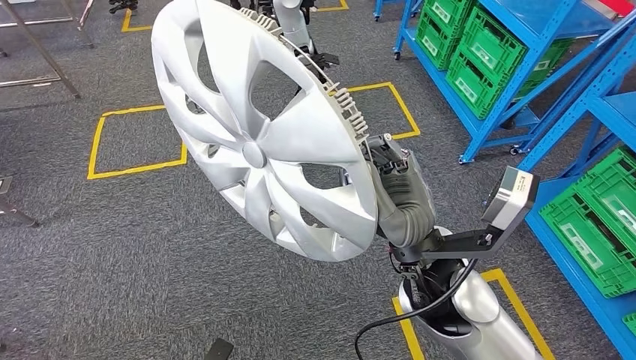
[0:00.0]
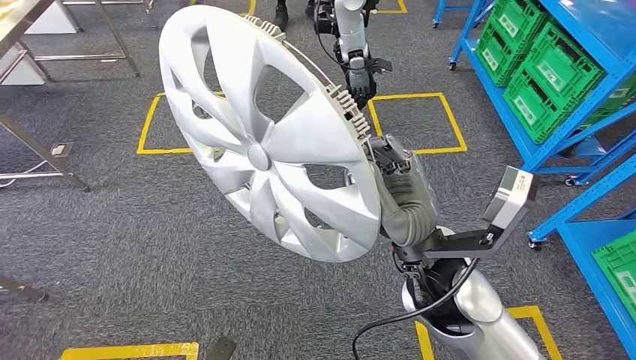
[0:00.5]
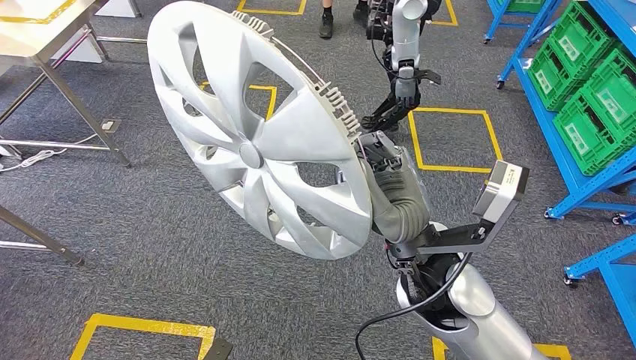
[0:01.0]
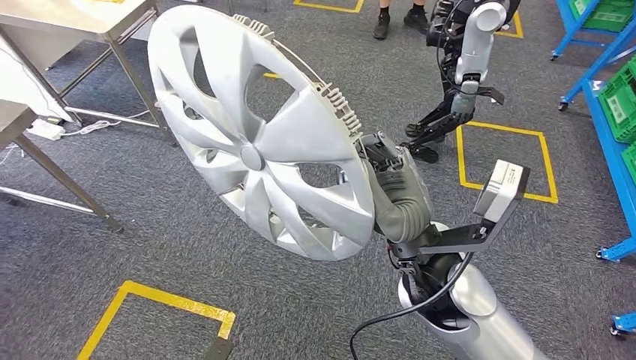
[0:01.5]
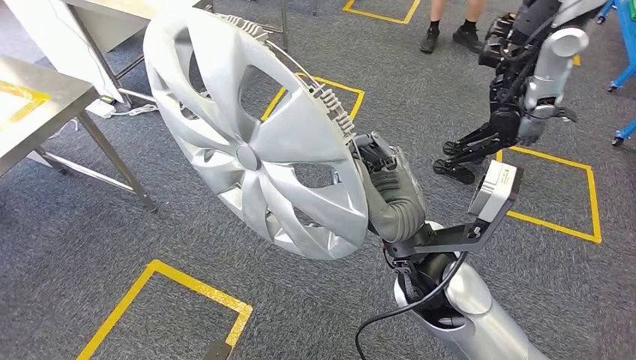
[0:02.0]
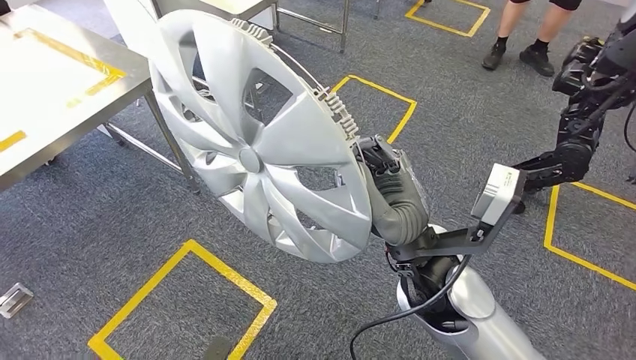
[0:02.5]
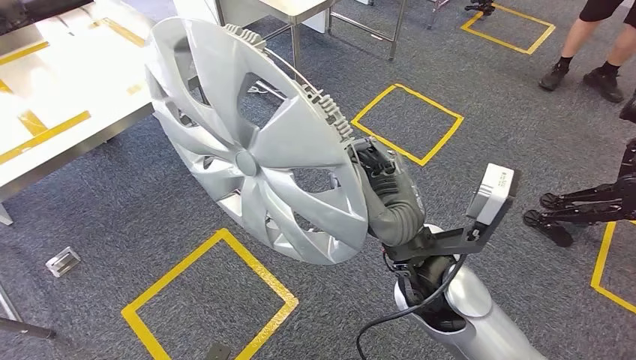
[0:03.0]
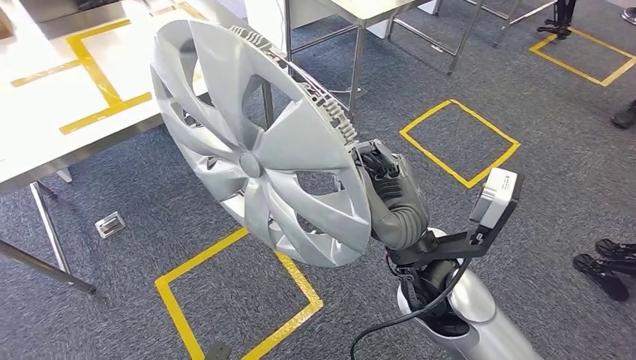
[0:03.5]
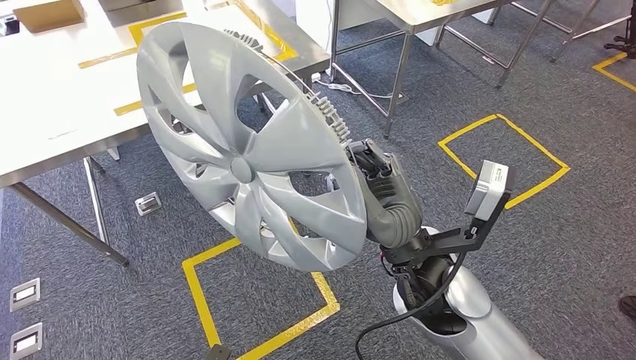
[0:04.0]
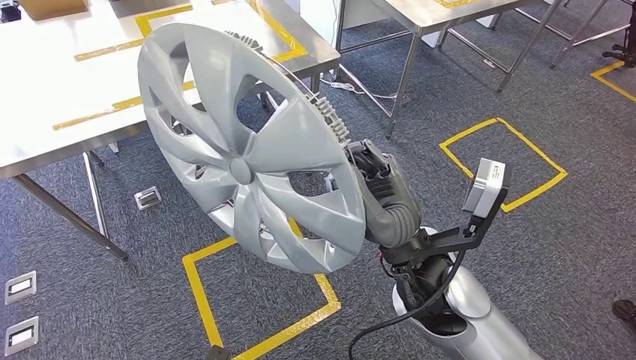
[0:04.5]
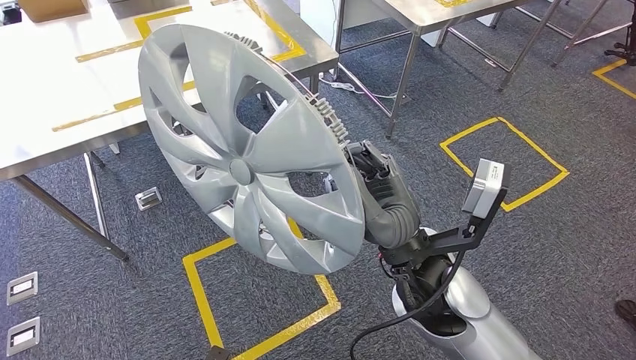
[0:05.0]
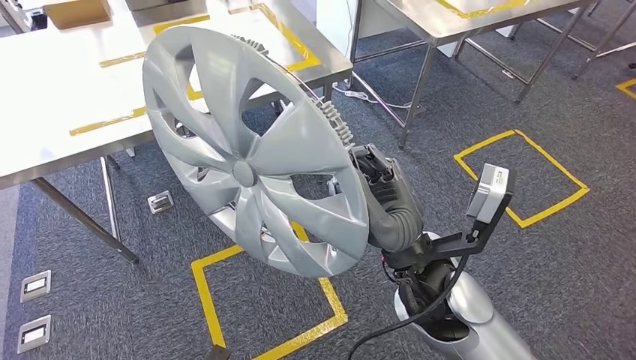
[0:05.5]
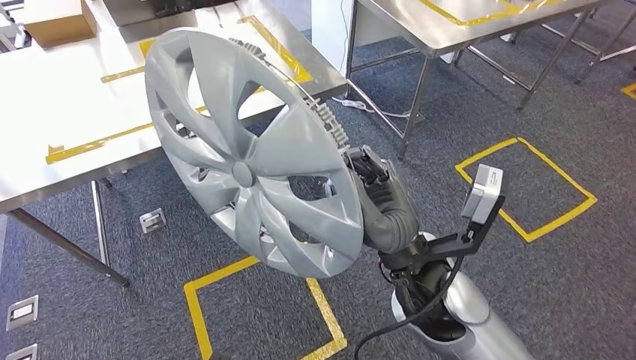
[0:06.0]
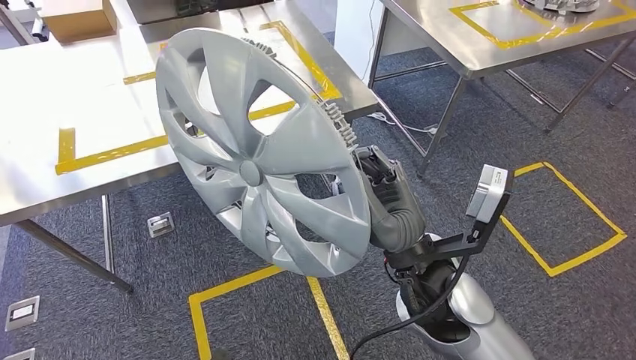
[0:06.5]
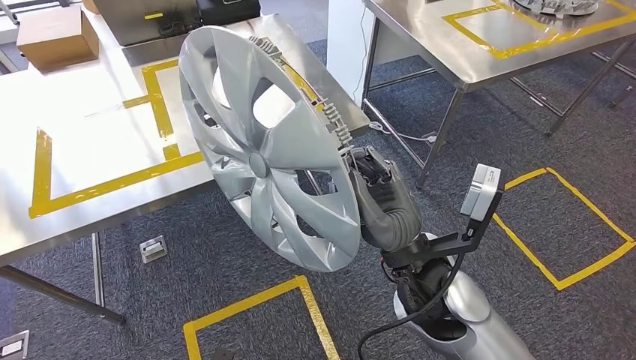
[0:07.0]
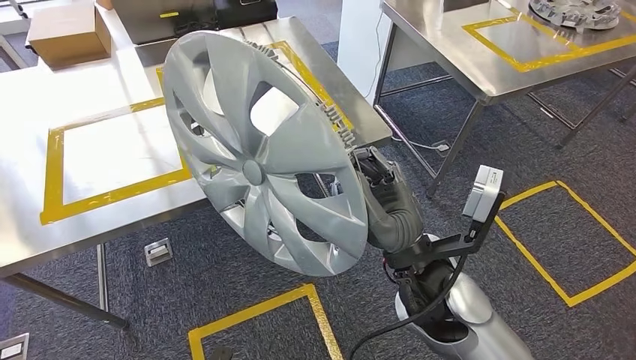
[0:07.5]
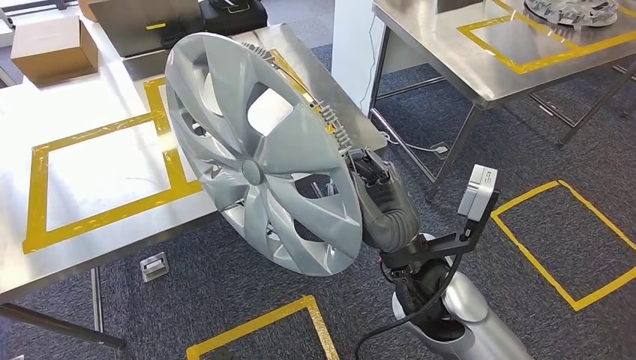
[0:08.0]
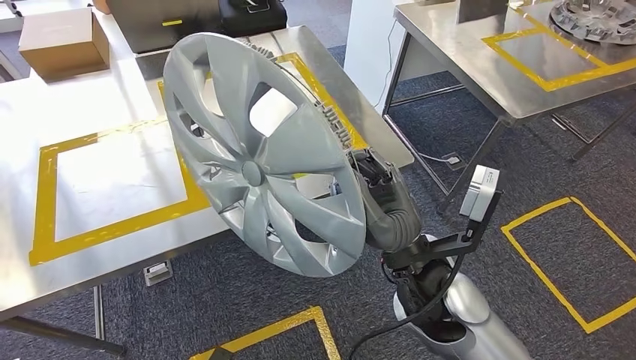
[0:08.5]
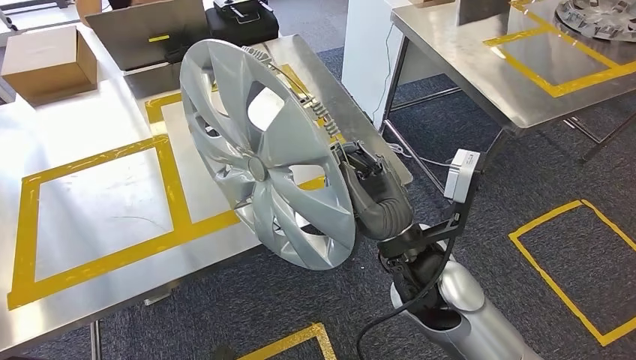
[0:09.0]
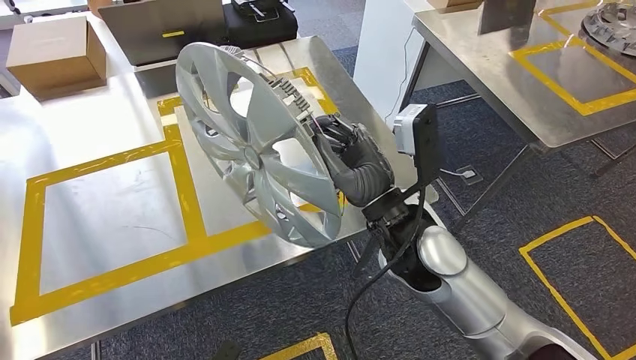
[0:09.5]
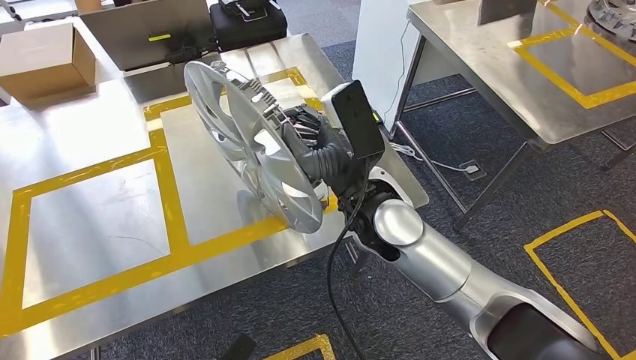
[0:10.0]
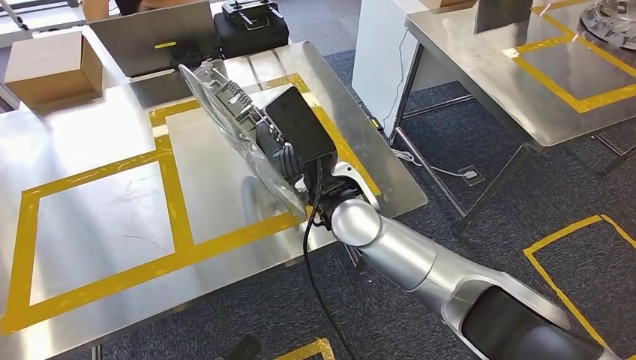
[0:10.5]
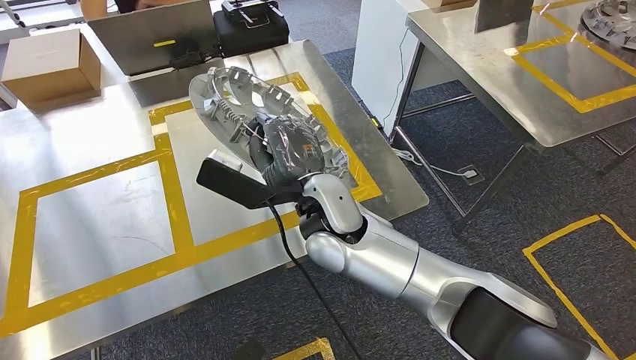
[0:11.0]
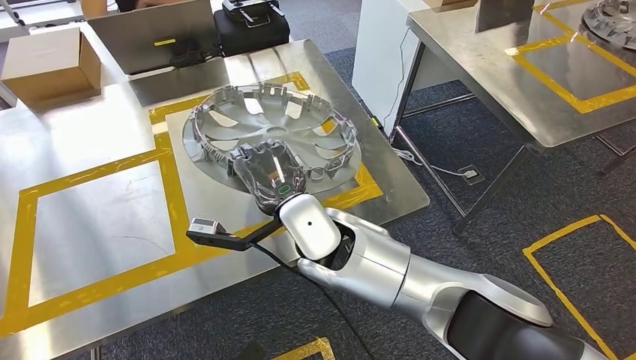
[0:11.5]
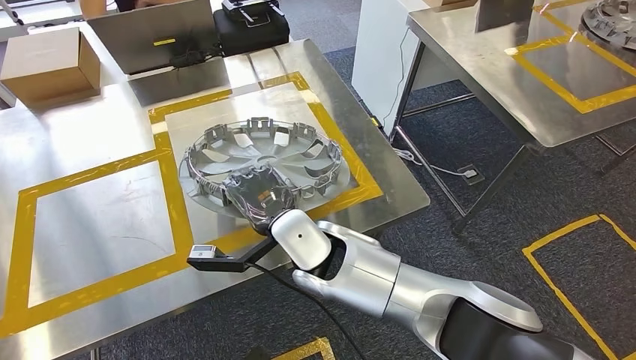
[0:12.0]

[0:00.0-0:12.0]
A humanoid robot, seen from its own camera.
Step, 0:00.0 to 0:06.0: Move the large material to the workbench.

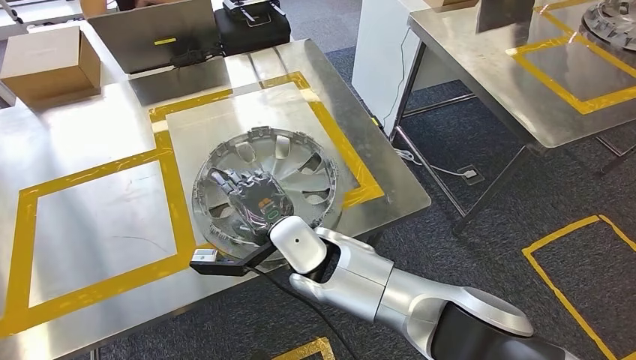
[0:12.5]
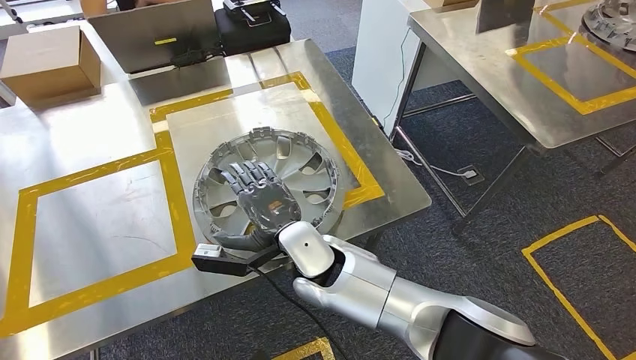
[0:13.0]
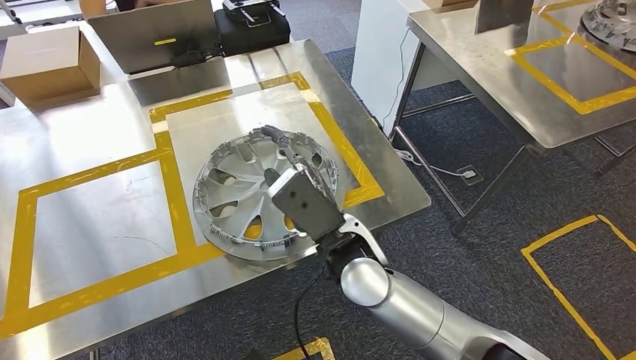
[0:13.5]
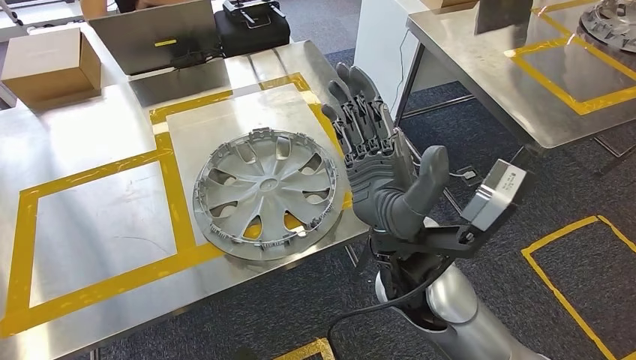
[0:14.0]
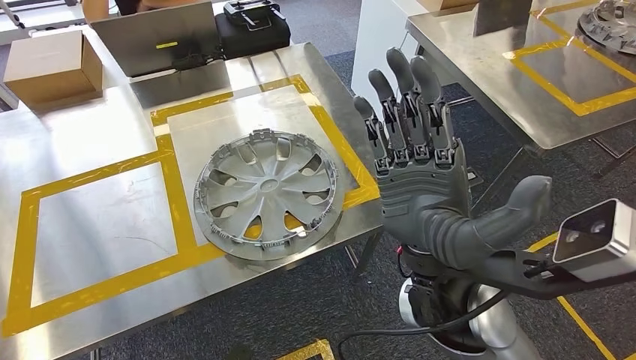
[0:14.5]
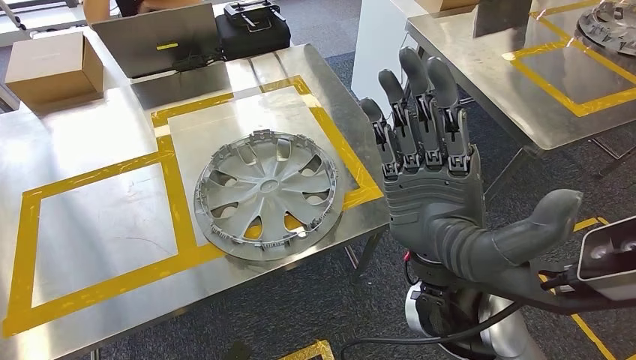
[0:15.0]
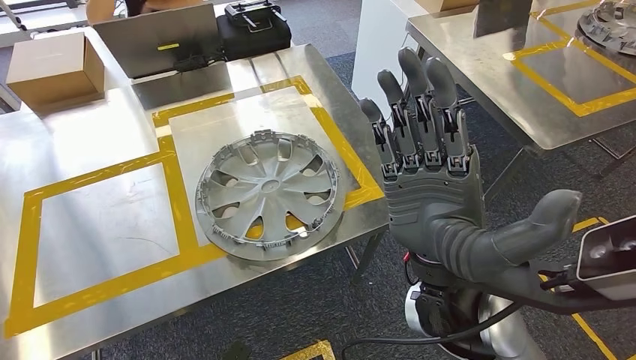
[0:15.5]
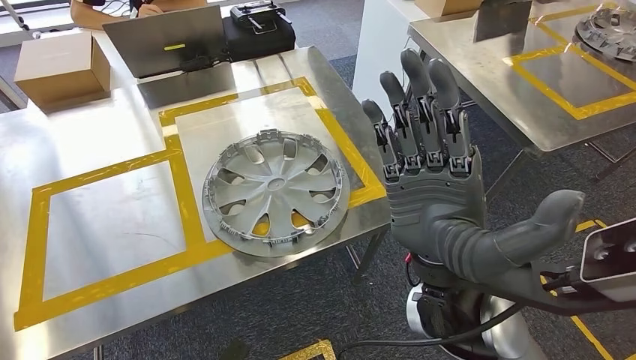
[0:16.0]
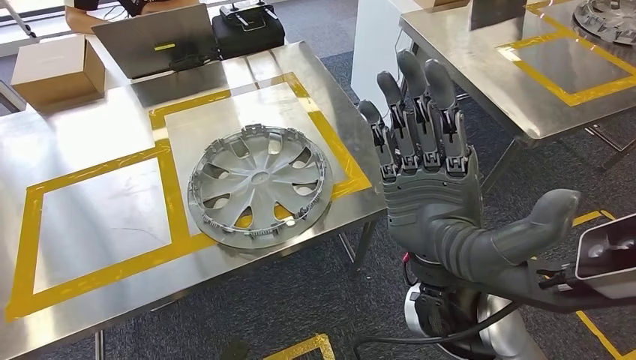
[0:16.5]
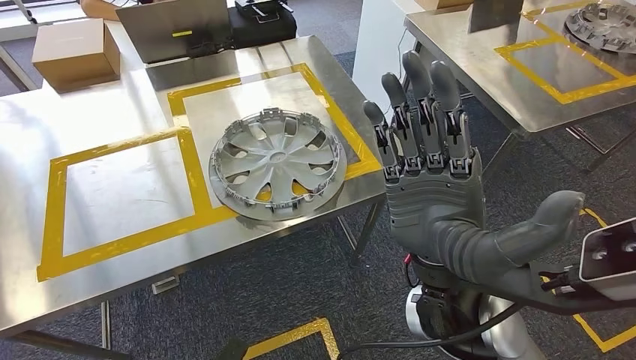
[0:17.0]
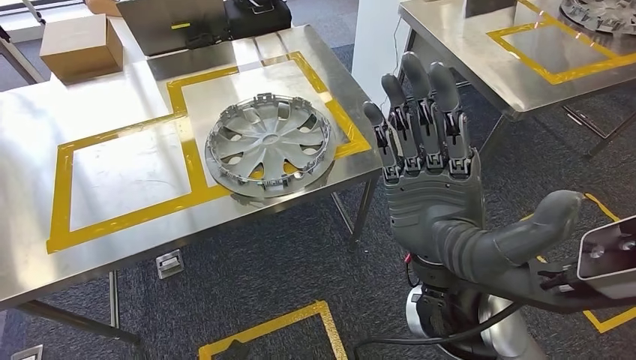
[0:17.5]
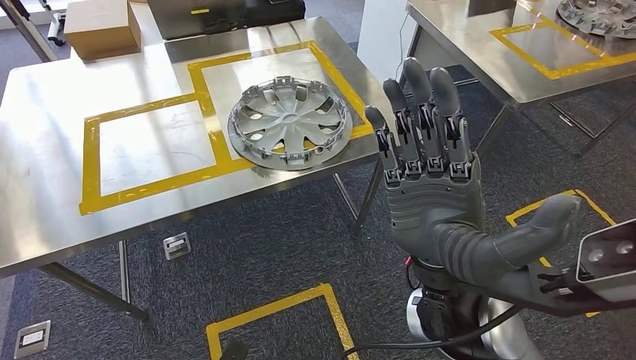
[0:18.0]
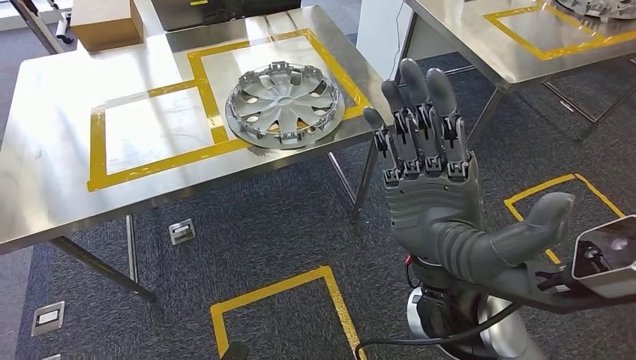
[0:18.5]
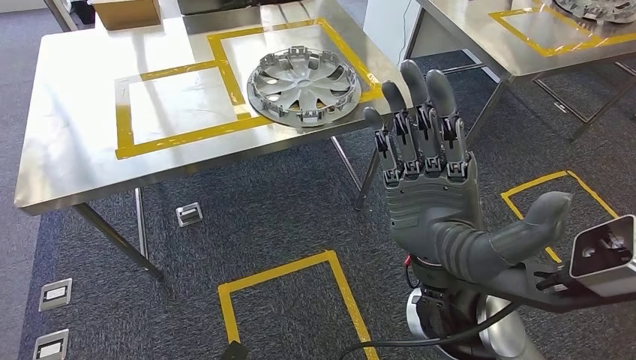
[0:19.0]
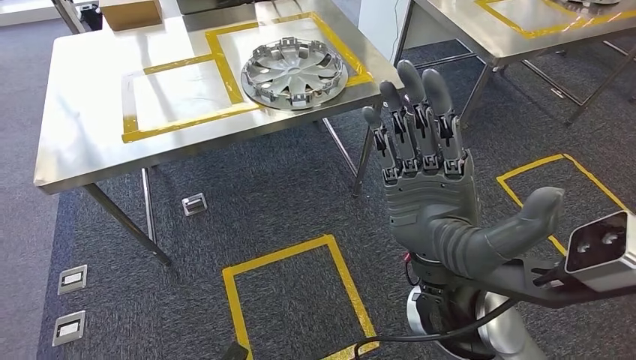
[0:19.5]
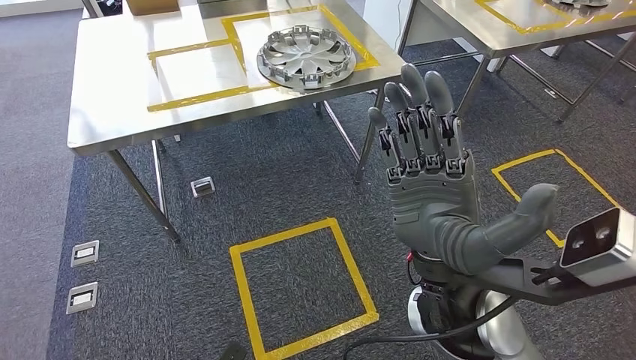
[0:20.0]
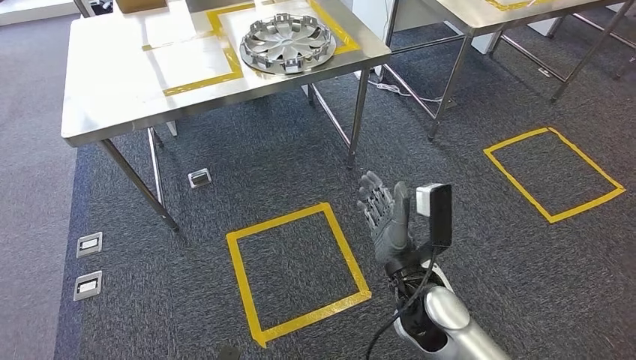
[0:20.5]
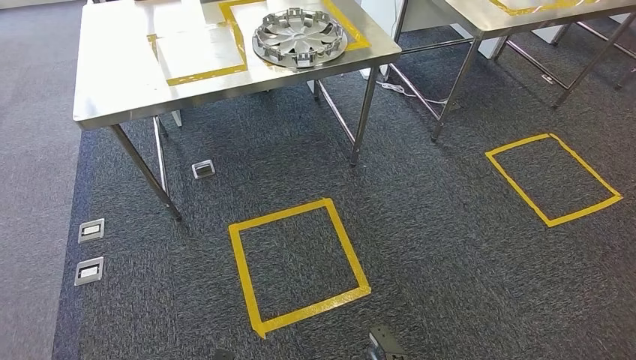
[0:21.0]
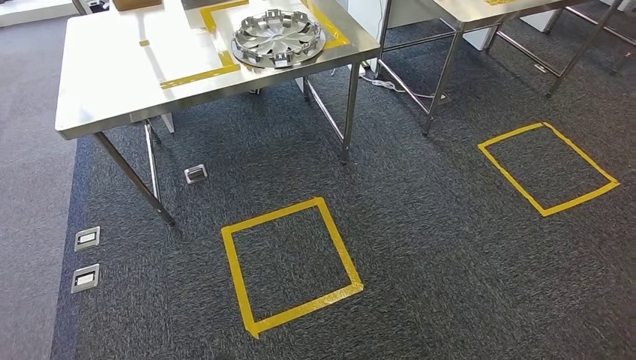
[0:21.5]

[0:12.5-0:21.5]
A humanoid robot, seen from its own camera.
Step, 0:14.0 to 0:21.5: Move to the initial position of the shelf.
